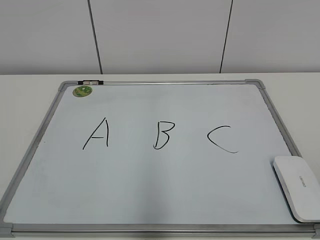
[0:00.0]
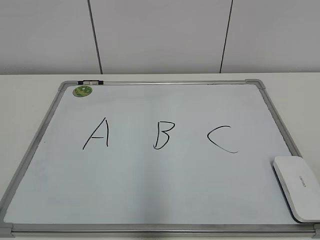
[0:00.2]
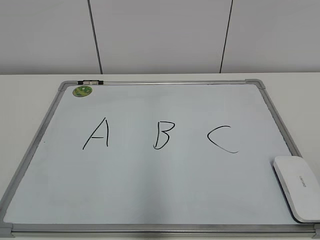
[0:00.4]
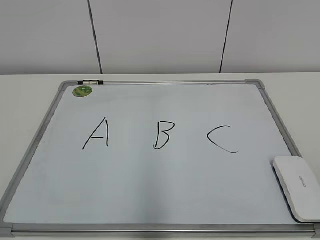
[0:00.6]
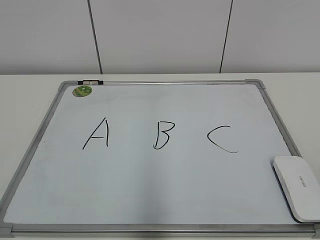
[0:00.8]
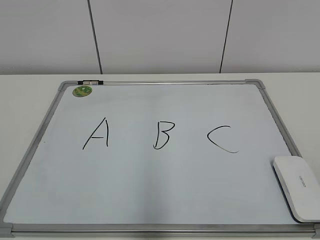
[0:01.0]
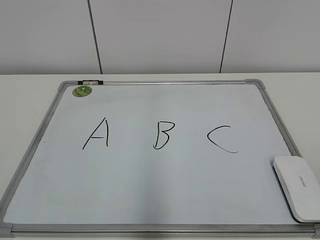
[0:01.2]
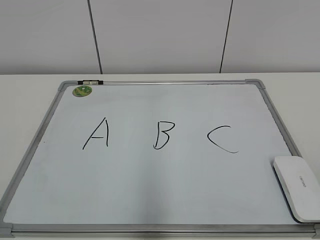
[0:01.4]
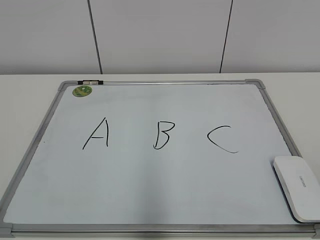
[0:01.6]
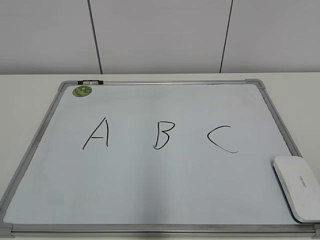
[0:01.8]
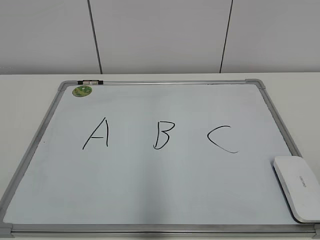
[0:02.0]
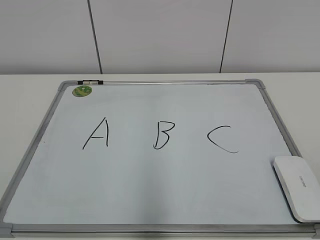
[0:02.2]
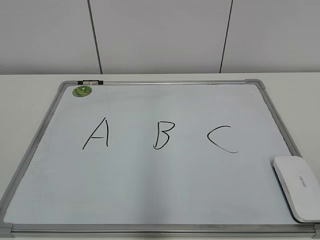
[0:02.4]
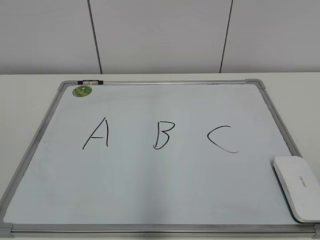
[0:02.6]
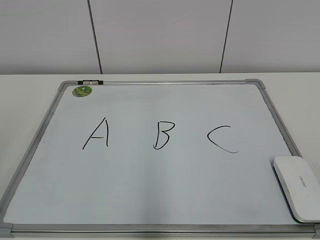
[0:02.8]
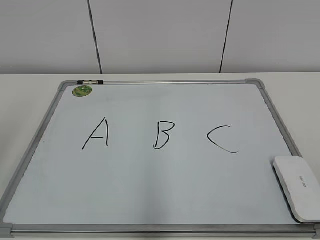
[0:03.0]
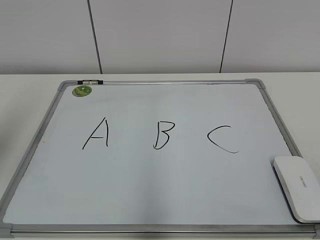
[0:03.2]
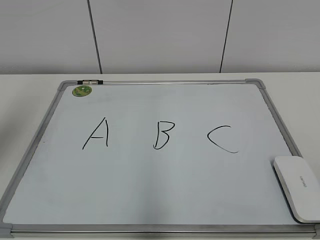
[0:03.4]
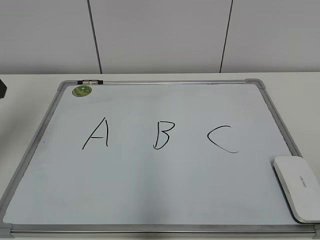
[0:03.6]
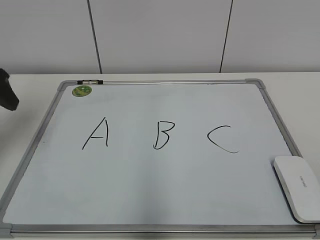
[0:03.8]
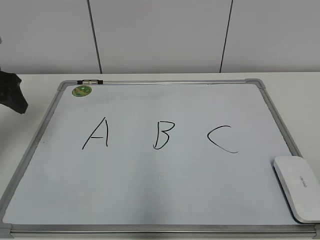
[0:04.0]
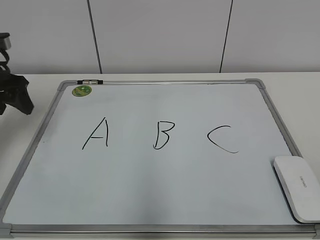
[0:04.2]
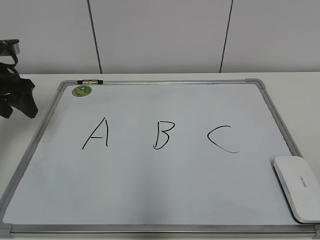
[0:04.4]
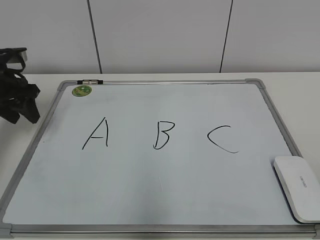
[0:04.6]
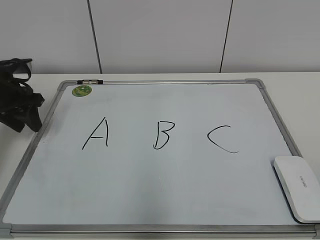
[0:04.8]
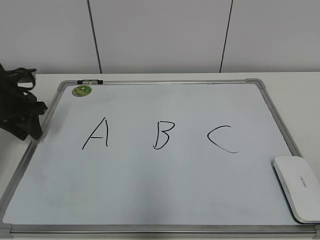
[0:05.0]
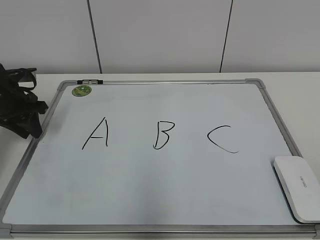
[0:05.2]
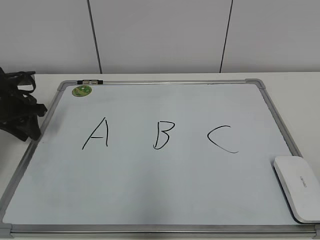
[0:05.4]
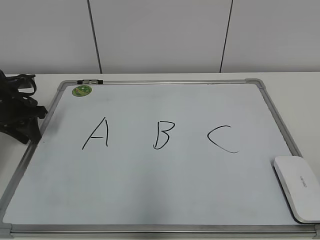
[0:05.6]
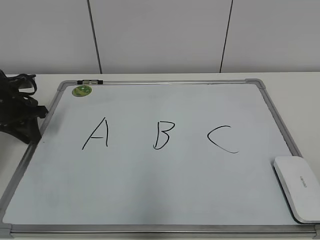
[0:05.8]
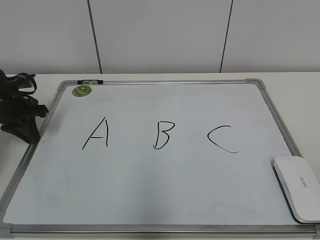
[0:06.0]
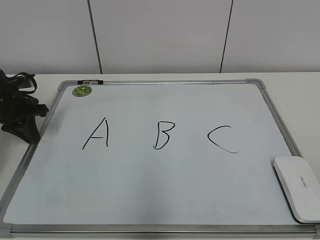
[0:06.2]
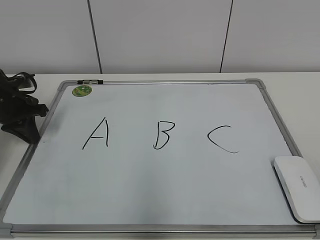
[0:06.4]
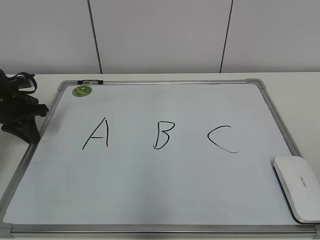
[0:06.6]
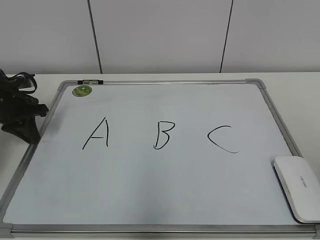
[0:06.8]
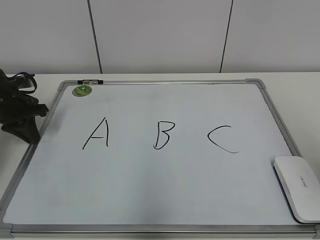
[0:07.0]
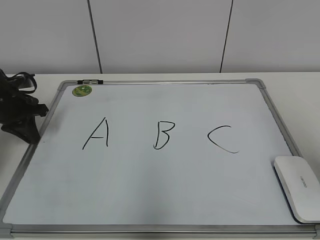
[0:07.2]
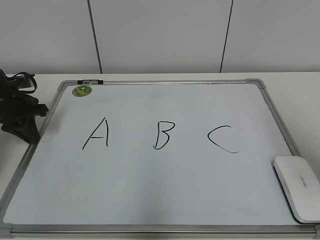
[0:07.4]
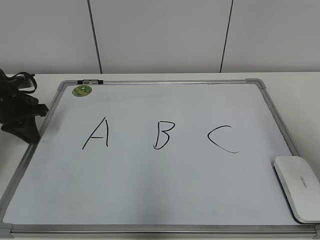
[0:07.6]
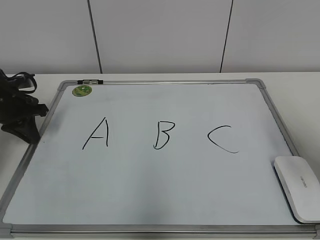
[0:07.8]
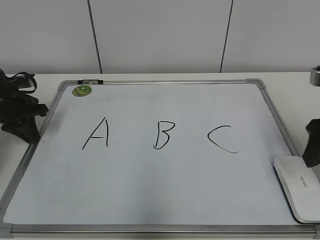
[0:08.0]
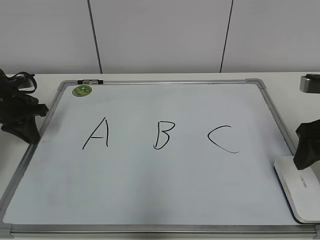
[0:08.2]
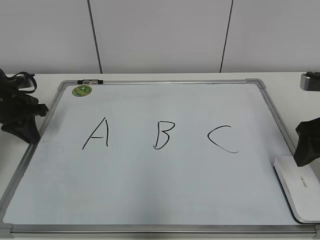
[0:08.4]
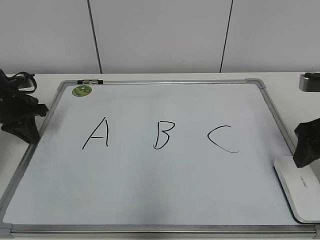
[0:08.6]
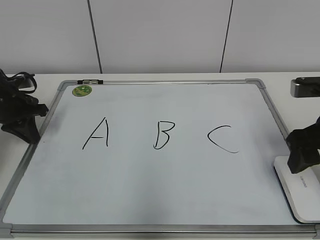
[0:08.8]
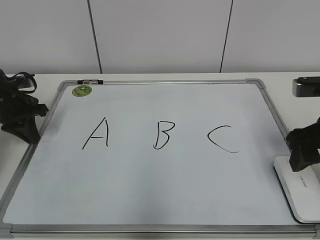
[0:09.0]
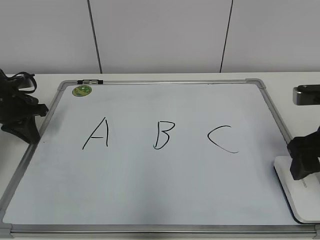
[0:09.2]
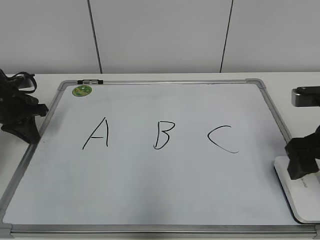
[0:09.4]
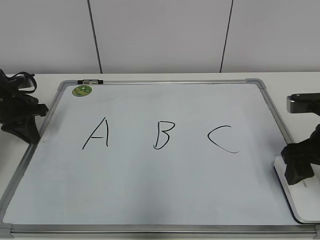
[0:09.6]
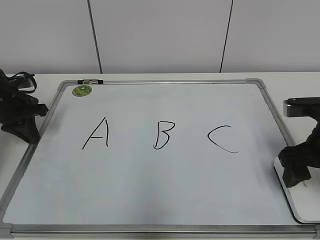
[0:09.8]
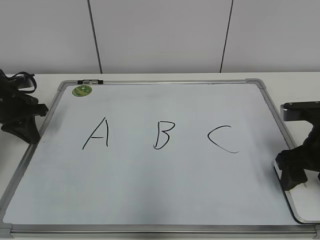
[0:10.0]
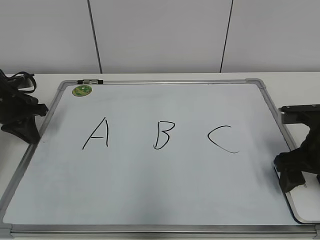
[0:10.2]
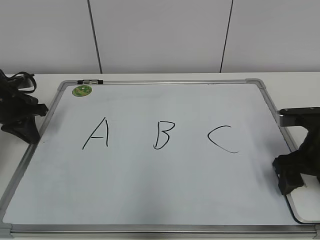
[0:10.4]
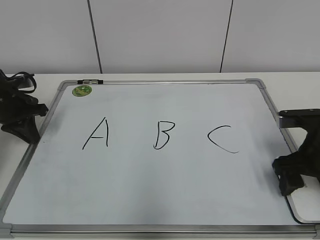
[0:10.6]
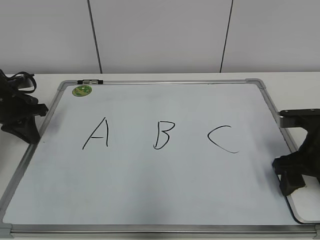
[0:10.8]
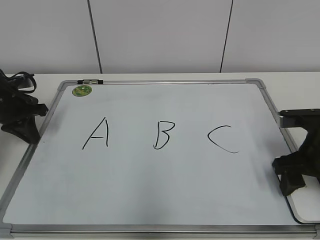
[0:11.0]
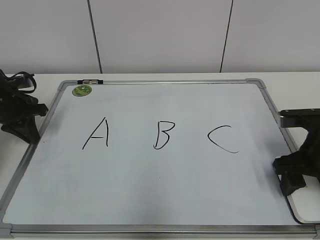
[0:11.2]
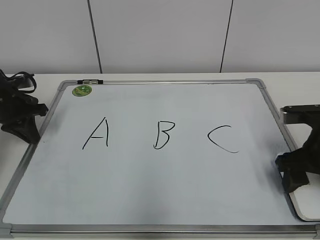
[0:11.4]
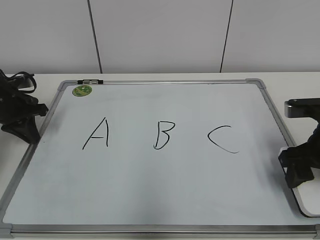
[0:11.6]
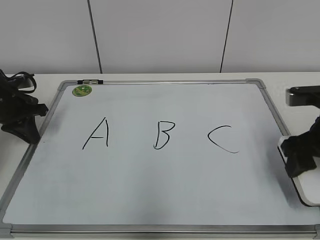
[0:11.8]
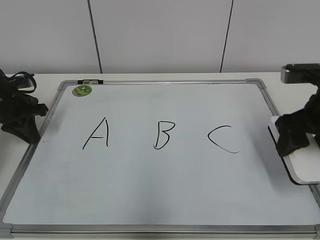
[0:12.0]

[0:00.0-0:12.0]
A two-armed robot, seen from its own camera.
Task of the whole recording: pick up the eraser on the blackboard and erase the letter "B".
Step, 0:00.0 to 0:06.0: Hold the drawing board steady with your left hand.
Step, 0:06.2 to 0:11.0: Grab the eraser with your right hand.
0:03.0 to 0:04.4: The left gripper is displaced forward and downward by approximately 30 cm.
0:04.4 to 0:06.0: The left gripper shifts some 10 cm downward, and closes.
0:06.0 to 0:07.6: The right gripper shifts roughly 20 cm forward.
0:07.6 to 0:09.0: The right gripper shifts some 10 cm downward.
0:09.0 to 0:10.4: The right gripper heads downward, covering some 5 cm.
0:10.4 to 0:12.0: The right gripper goes about 5 cm upward.

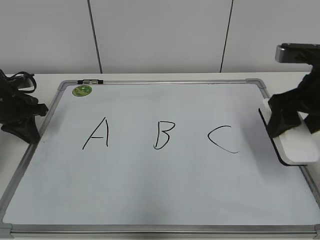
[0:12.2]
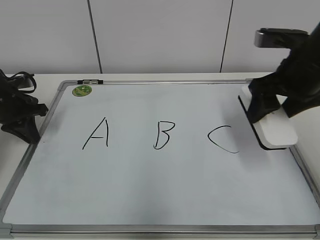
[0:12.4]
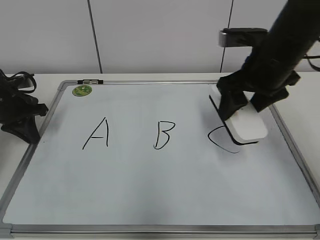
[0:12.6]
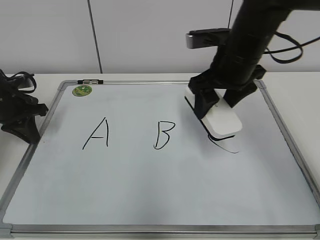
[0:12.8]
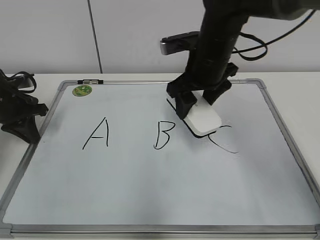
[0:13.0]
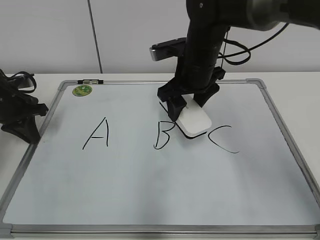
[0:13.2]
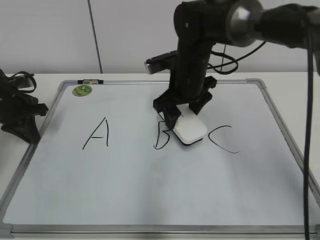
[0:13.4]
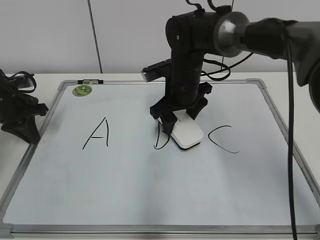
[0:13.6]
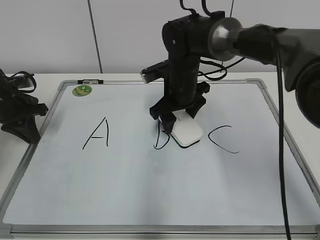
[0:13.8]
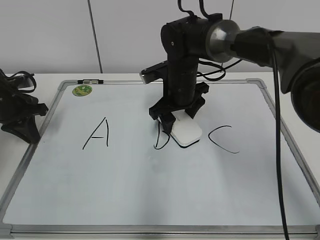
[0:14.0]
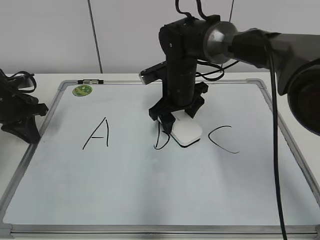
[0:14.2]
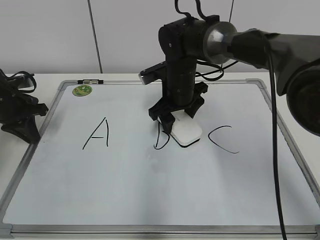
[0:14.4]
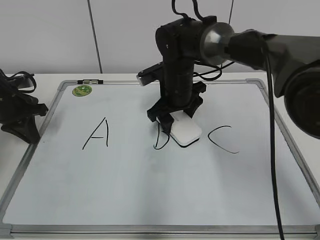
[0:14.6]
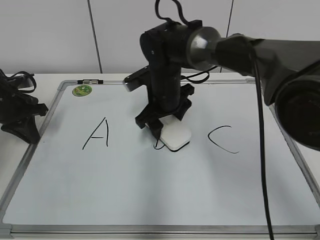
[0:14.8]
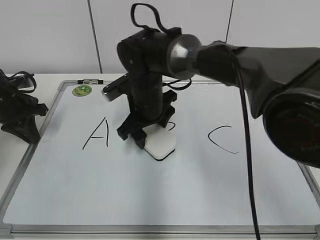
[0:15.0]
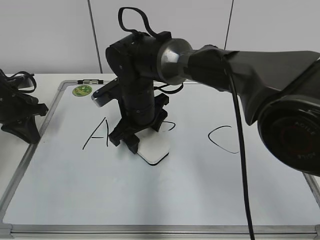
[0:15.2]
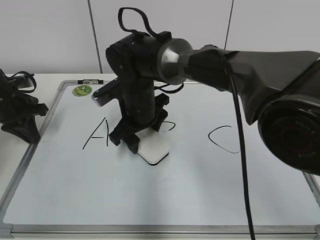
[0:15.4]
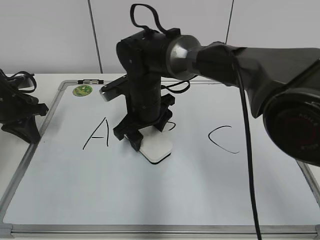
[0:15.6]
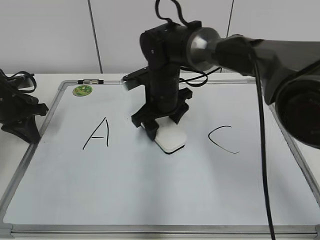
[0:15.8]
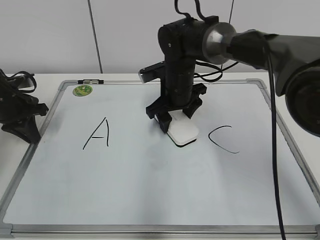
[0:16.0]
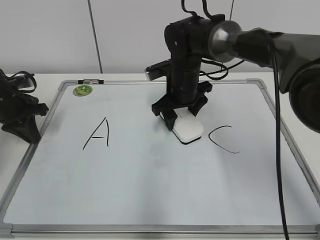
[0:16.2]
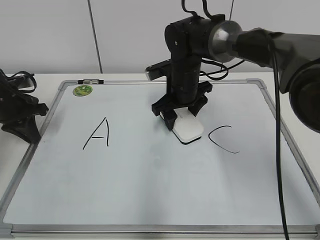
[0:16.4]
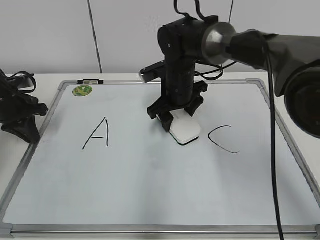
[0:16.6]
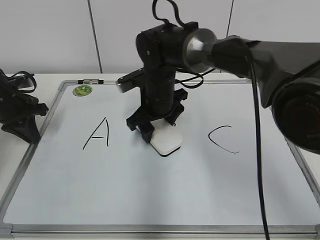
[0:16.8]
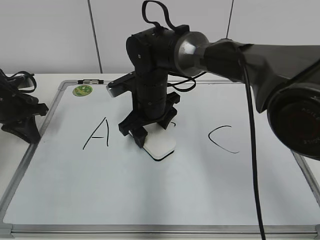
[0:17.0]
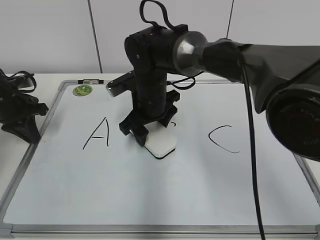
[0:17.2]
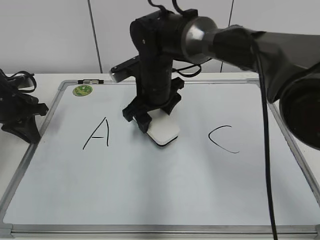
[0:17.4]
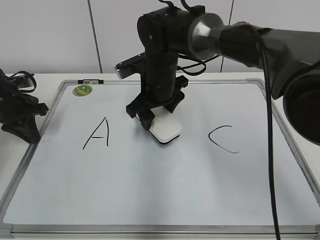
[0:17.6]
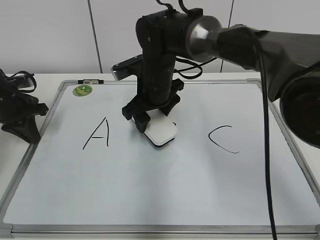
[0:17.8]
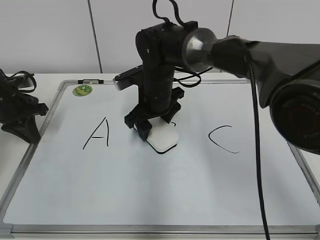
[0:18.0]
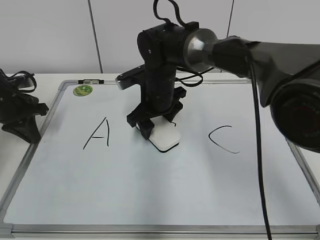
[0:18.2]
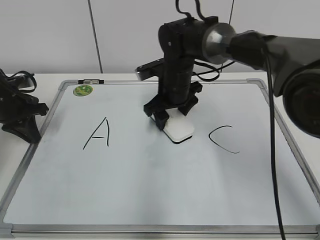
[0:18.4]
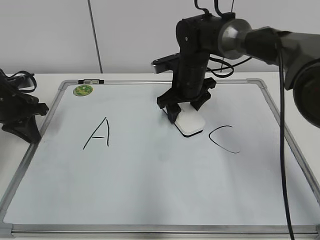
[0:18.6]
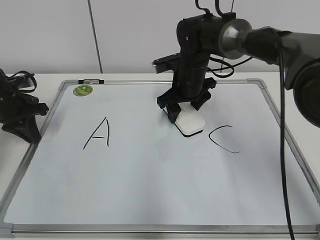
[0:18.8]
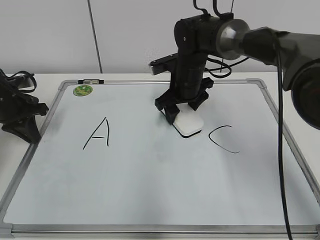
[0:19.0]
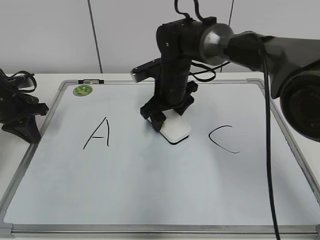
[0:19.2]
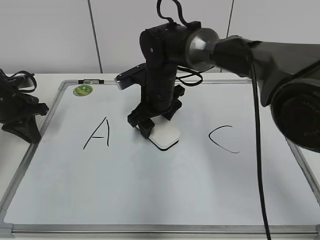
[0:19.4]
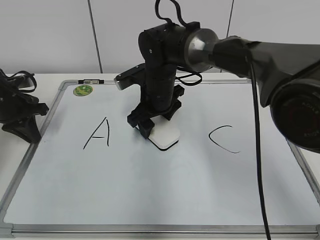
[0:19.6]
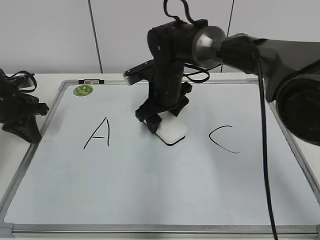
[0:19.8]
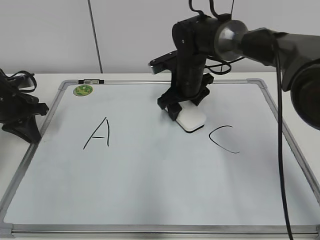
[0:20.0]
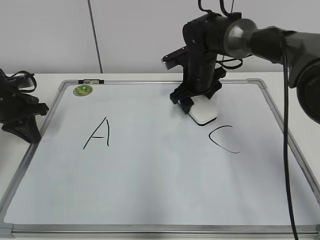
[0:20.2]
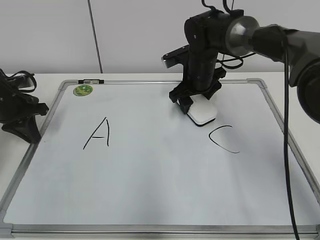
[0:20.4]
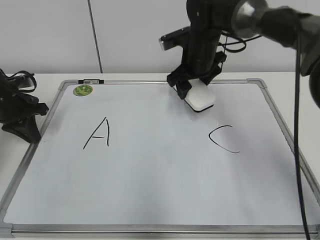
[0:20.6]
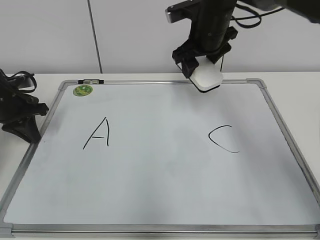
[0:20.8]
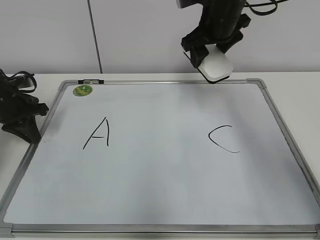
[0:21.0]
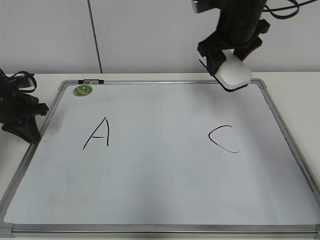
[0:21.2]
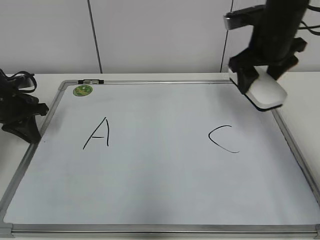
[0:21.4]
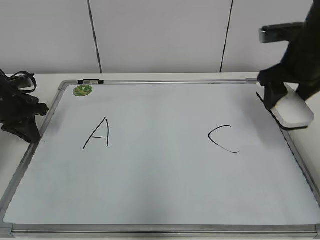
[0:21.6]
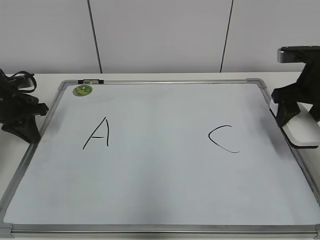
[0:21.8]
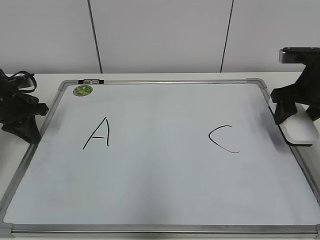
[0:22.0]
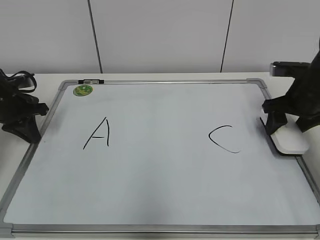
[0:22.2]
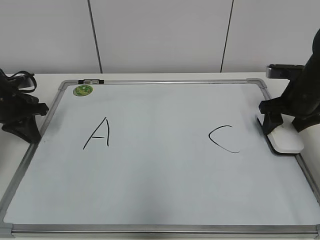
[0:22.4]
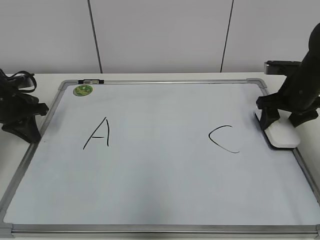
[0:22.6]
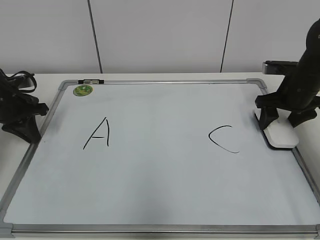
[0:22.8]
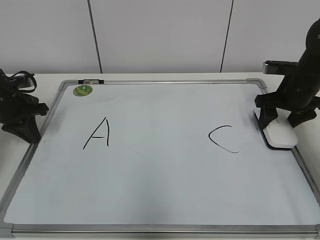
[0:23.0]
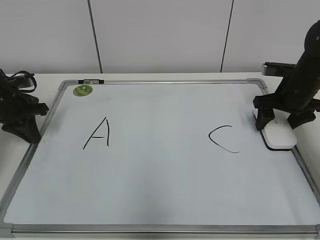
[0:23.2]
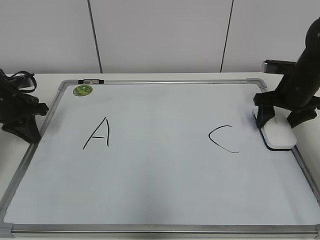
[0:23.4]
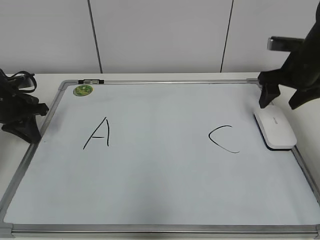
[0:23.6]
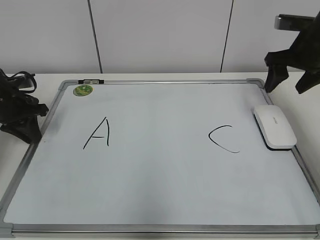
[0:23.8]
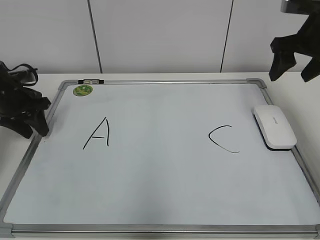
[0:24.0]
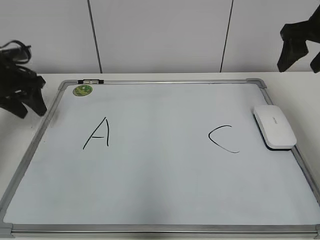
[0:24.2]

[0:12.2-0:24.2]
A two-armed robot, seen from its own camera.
Task of the whole recording: pick up the eraser on the blackboard and erase the letter "B".
Step, 0:12.2 to 0:20.2: Erase the letter B with your right hand.
Step, 0:20.4 to 0:23.2: Put down the eraser with your right hand.
0:12.2 to 0:13.8: The right gripper shifts roughly 25 cm to the left, forward and downward.
0:13.8 to 0:15.2: The right gripper is displaced to the left by roughly 10 cm.
0:15.2 to 0:16.6: The right gripper shifts approximately 10 cm to the right and forward.
0:19.8 to 0:21.2: The right gripper shifts roughly 20 cm upward and to the right.
0:21.2 to 0:22.6: The right gripper shifts about 20 cm to the right and downward.
0:22.6 to 0:24.2: The left gripper changes place by approximately 5 cm, and opens its fingers, while the right gripper shifts approximately 15 cm upward.
